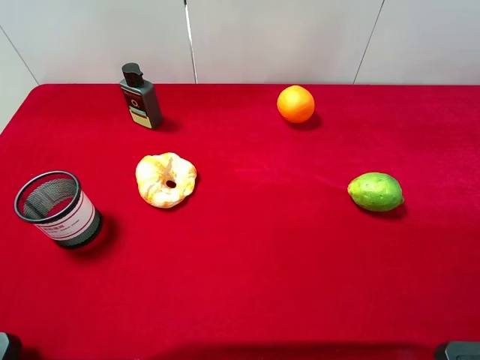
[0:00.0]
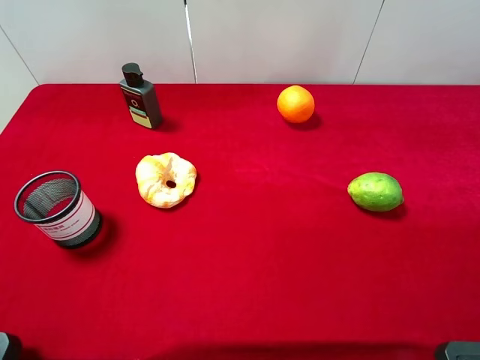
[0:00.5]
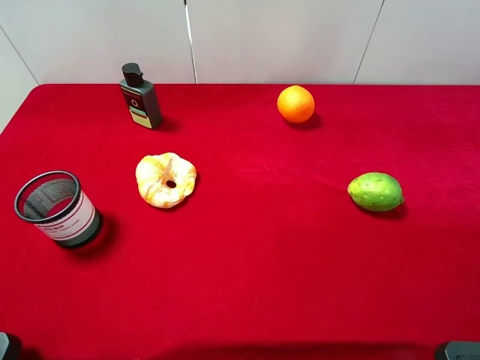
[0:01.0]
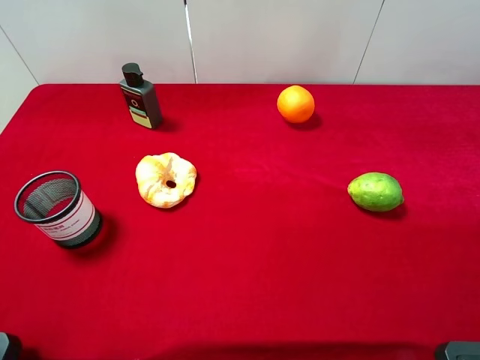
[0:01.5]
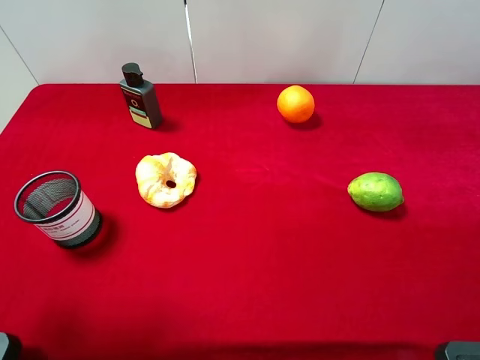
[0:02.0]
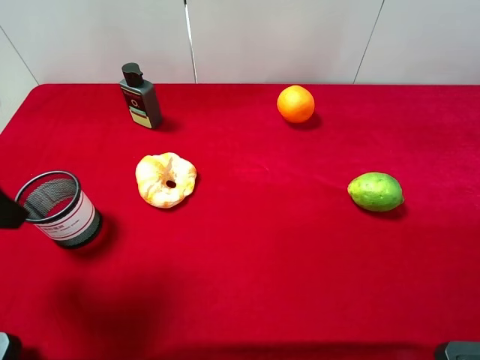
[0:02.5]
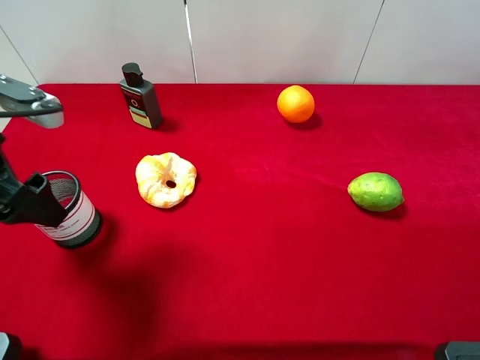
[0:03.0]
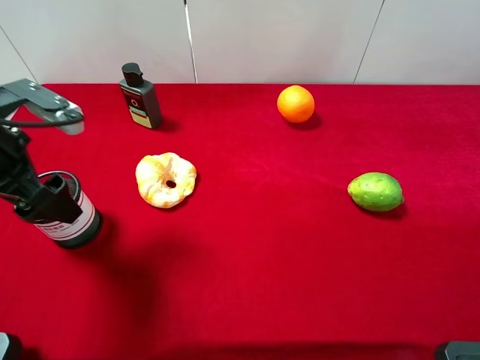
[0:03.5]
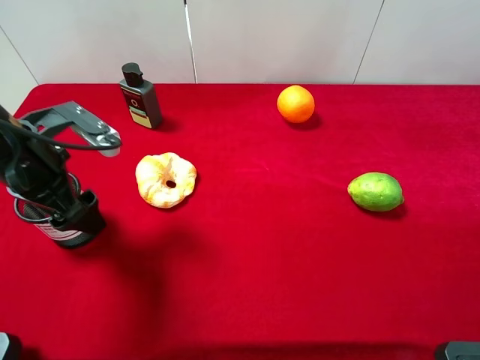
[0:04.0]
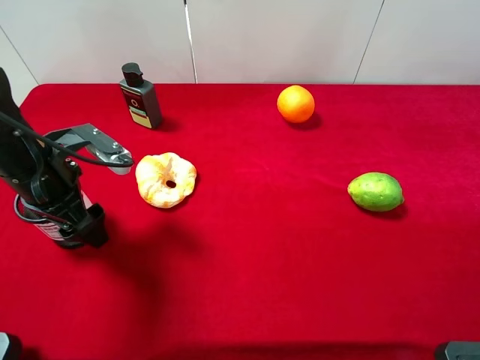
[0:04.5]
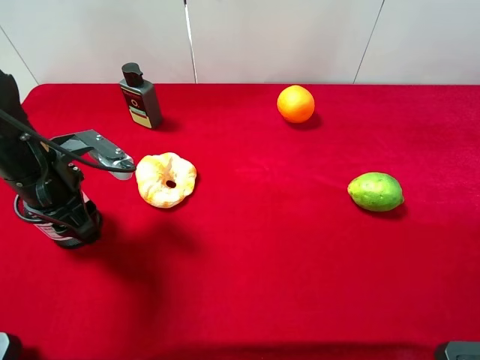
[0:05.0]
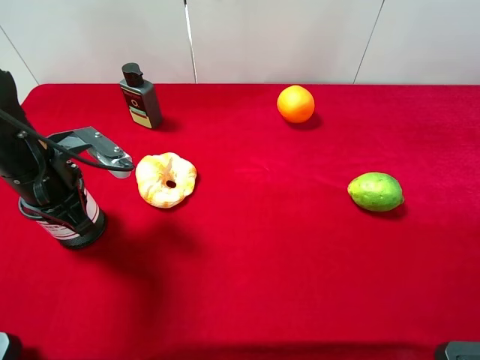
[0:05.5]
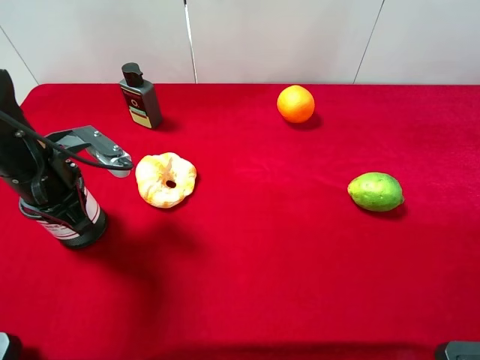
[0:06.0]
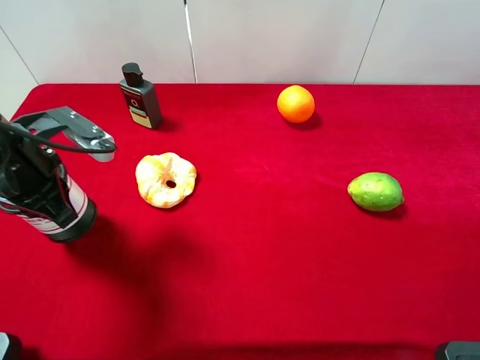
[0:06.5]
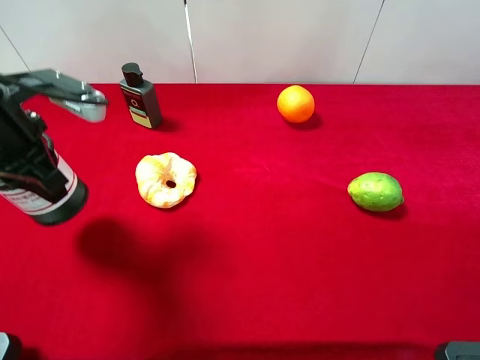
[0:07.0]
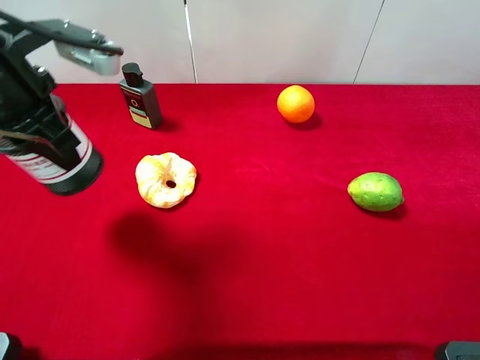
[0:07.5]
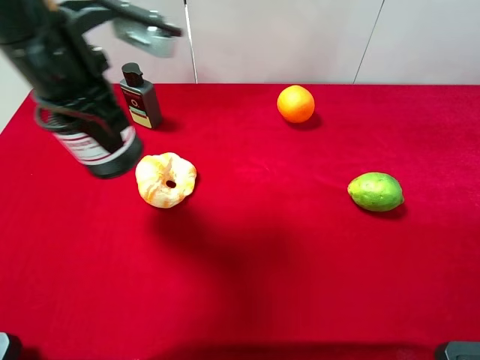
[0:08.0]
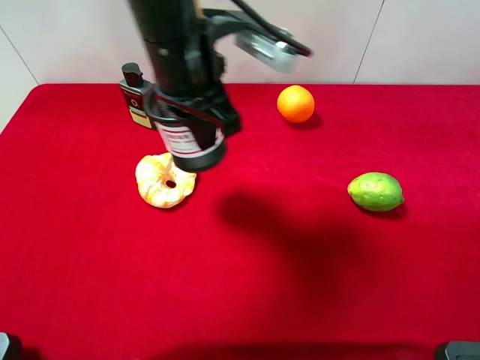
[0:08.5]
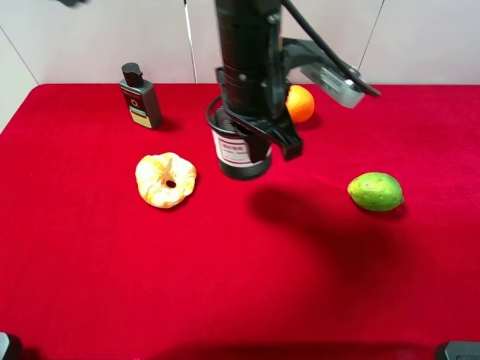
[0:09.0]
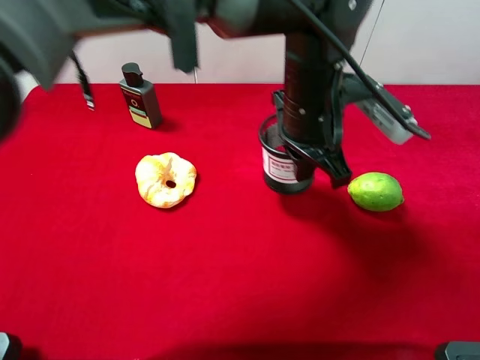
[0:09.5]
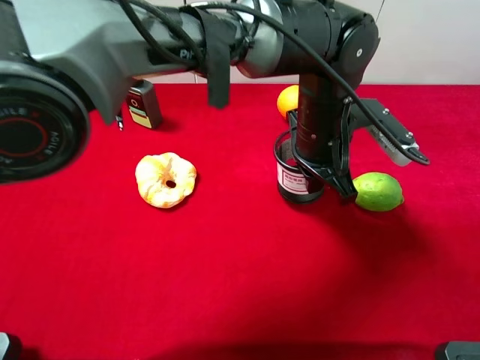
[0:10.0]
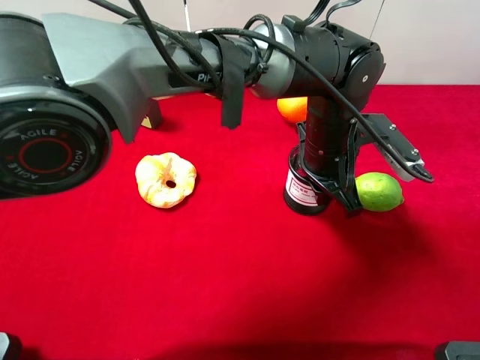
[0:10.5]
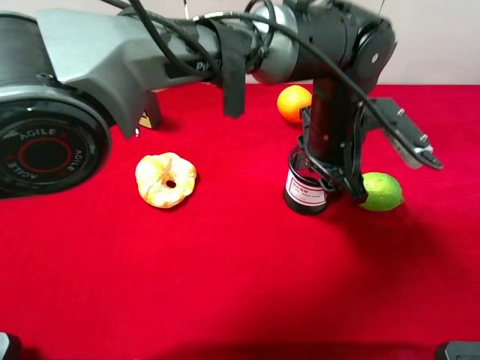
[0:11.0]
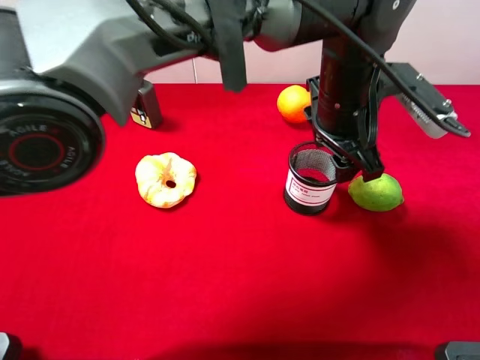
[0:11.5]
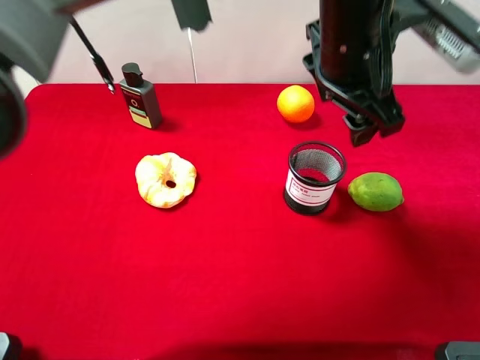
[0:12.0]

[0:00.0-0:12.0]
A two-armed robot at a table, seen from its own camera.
Task of the whole recording: the gripper move the object.
Step, 0:00.0 to 0:05.5: Grasp the pen container with the left gripper.
Step, 0:06.0 to 0:11.5: Place the pen container on the table with the left gripper.
0:00.0 to 0:02.0: The left gripper heads forward, covering approximately 10 cm.
0:02.0 to 0:04.0: The left gripper is displaced downward, forward and to the right by approximately 20 cm.
0:04.0 to 0:06.0: The left gripper closes its fingers.
0:06.0 to 0:08.0: The left gripper shifts roughly 15 cm upward and to the right.
0:08.0 to 0:10.0: The left gripper shifts approximately 30 cm to the right and downward.
0:10.0 to 0:12.0: The left gripper shifts roughly 10 cm upward, and opens up.

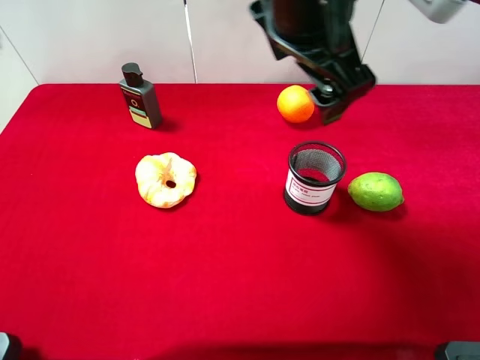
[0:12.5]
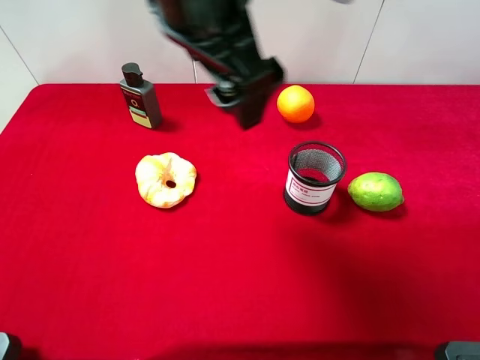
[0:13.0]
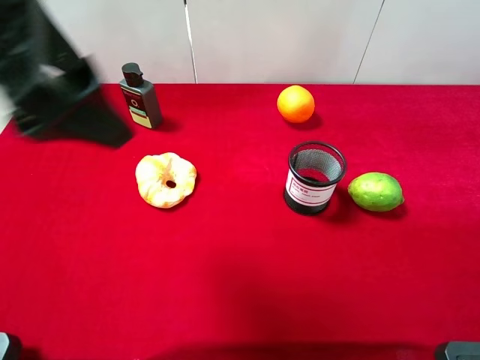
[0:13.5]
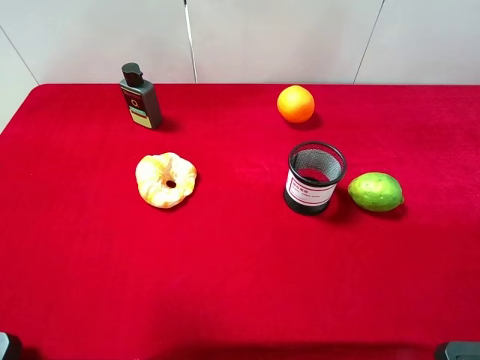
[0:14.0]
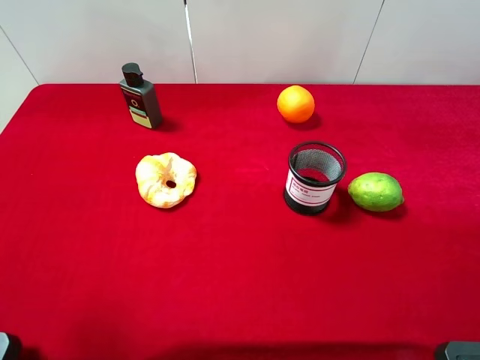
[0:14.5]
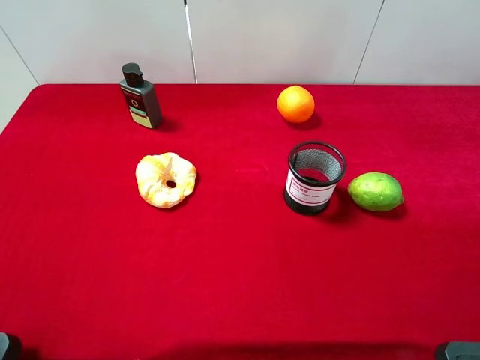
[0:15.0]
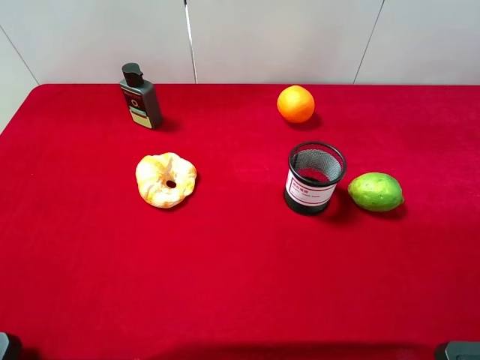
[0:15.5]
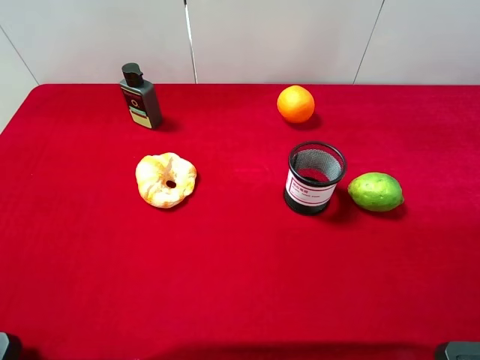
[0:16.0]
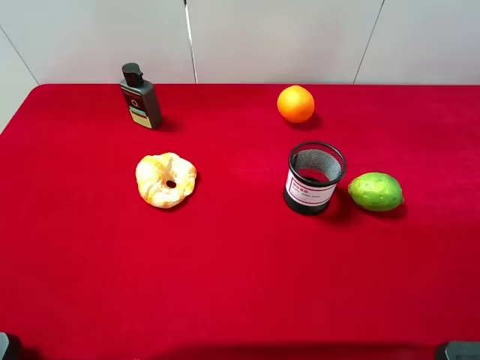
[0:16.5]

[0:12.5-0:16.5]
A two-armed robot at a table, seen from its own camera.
Task of the whole recording: the gripper move the object.
0:12.5 to 0:14.5: The left gripper shifts roughly 40 cm to the left and backward.

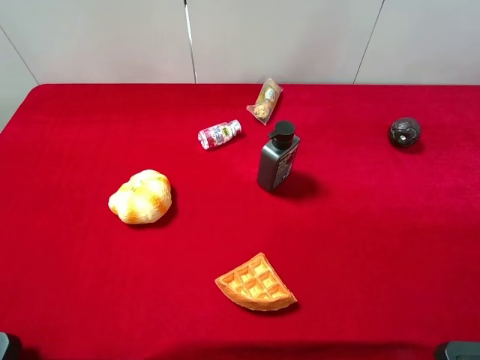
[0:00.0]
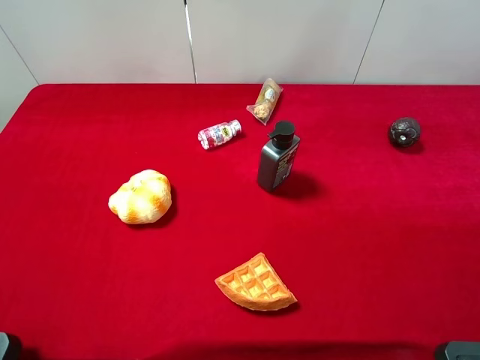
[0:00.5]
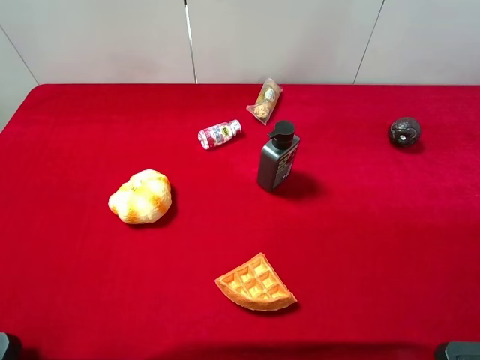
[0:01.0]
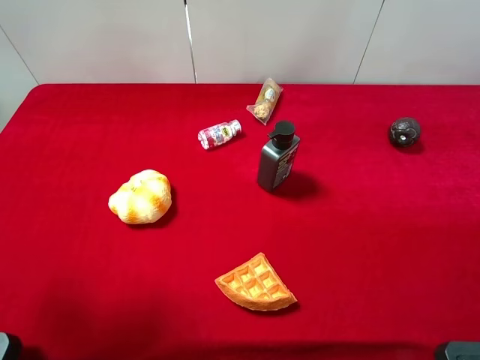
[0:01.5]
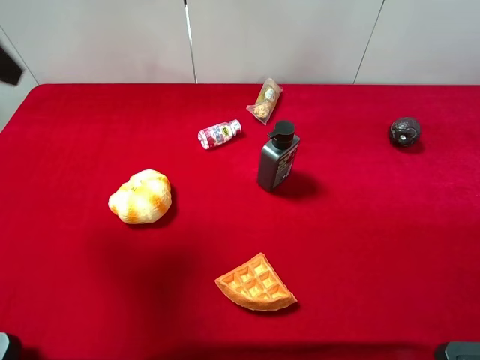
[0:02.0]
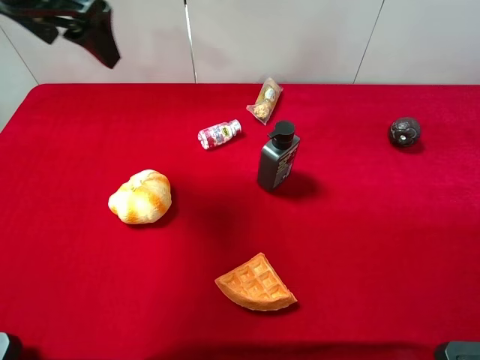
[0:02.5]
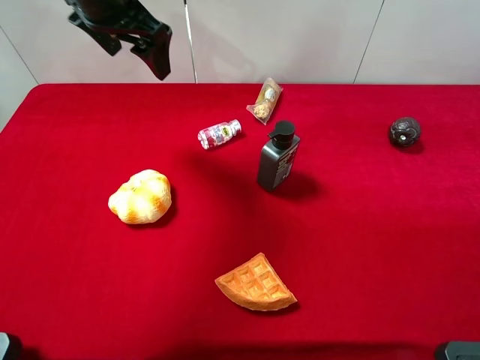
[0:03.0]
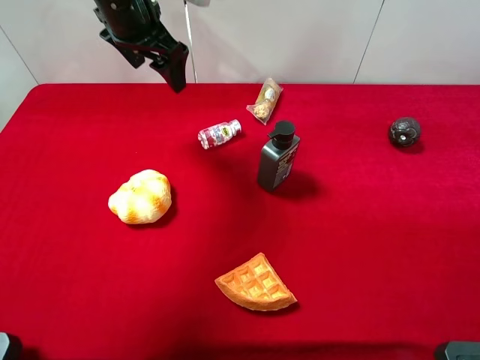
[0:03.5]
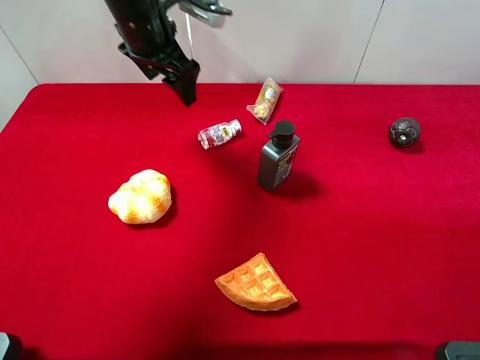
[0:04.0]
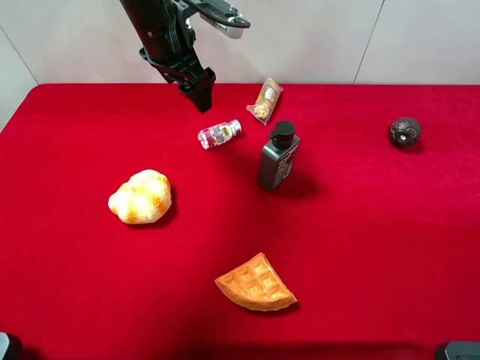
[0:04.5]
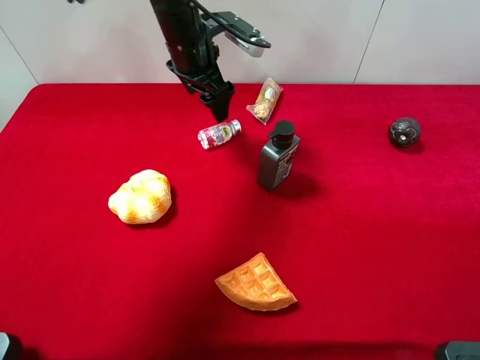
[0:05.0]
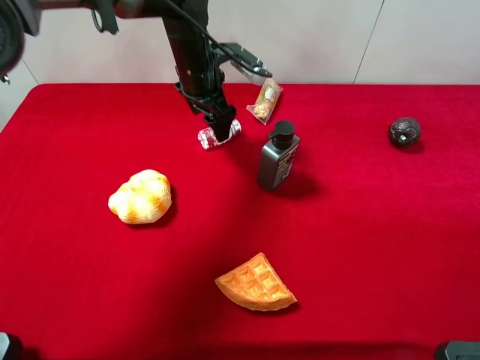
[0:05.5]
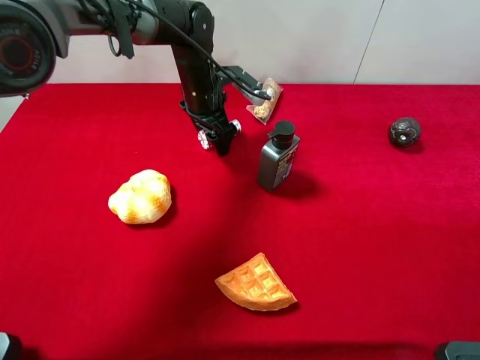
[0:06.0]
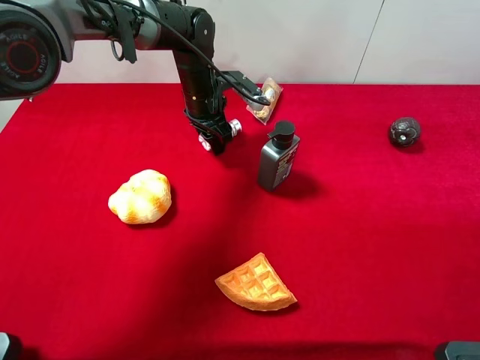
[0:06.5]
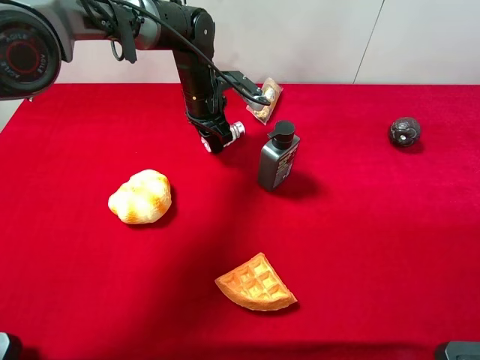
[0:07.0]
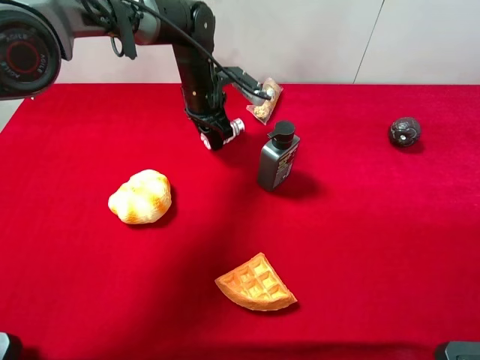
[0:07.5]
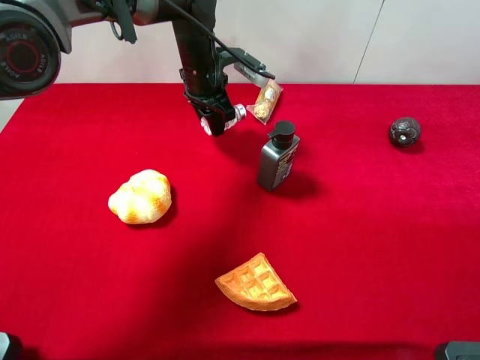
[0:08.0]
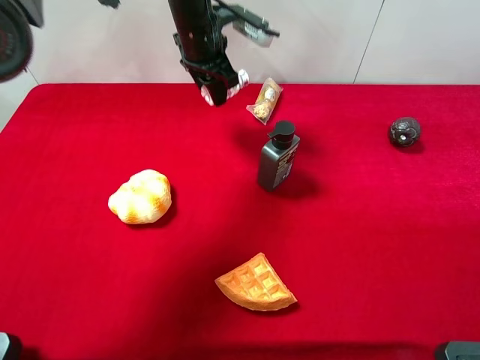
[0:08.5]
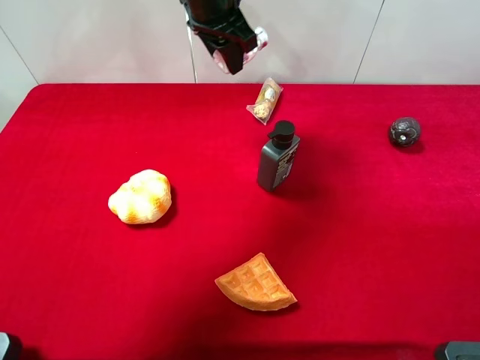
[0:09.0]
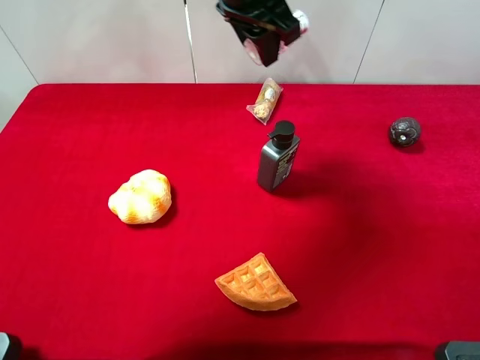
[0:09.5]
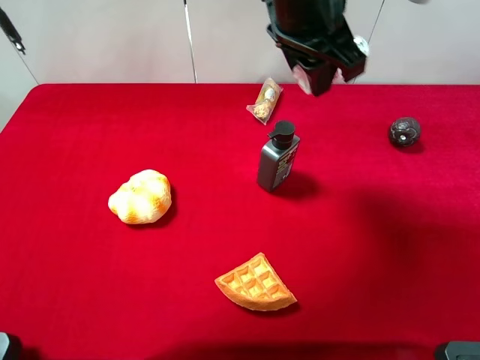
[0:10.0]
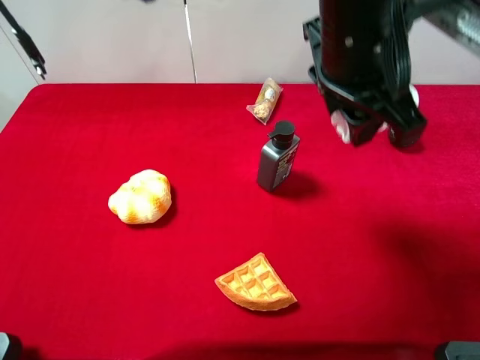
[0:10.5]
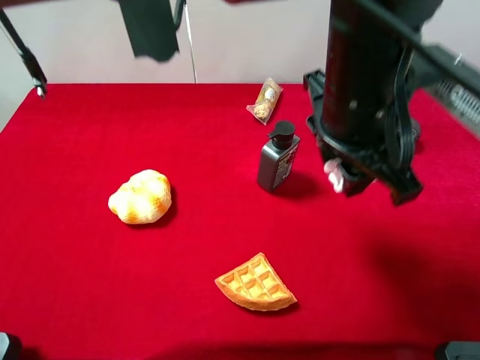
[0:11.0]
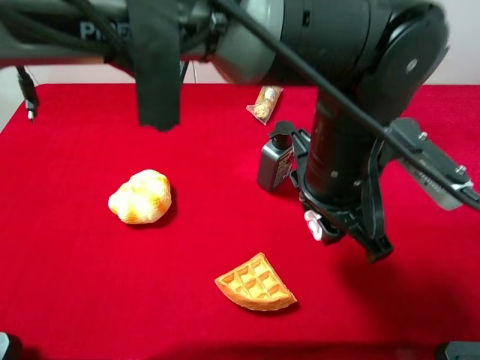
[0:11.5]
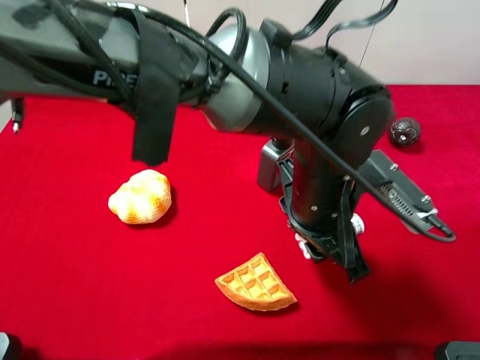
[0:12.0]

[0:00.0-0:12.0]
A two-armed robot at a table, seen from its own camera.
Task of the whole recording: the gripper move the object.
Step, 0:00.0 to 0:06.5: Grasp the mint candy with the left gripper.
0:00.0 to 0:02.0: The left gripper is displaced forward by some 20 cm.
0:02.0 to 0:04.0: The left gripper goes approximately 25 cm forward, to the right and downward.
0:04.0 to 0:06.0: The left gripper moves downward and to the right, some 15 cm.
0:06.0 to 0:08.0: The left gripper closes.
0:08.0 to 0:10.0: The left gripper is displaced upward, backward and to the right by approximately 25 cm.
0:10.0 to 0:12.0: The left gripper goes approximately 20 cm downward and backward.
